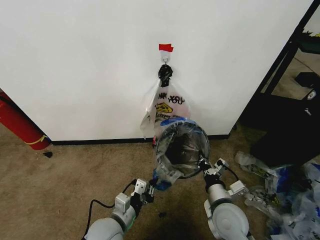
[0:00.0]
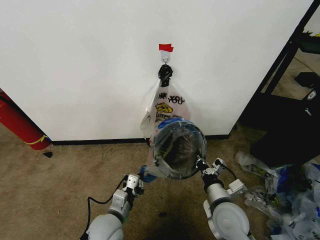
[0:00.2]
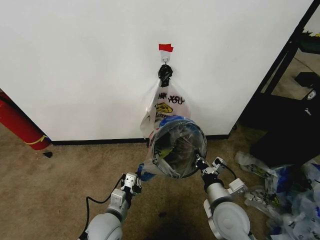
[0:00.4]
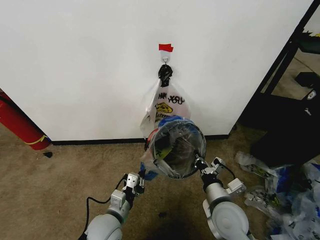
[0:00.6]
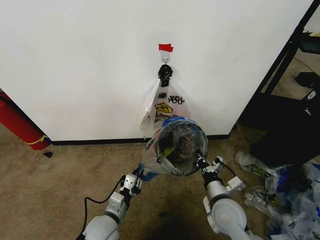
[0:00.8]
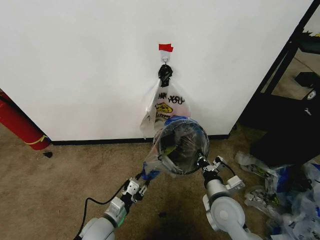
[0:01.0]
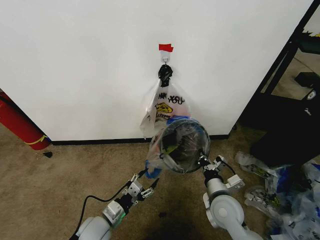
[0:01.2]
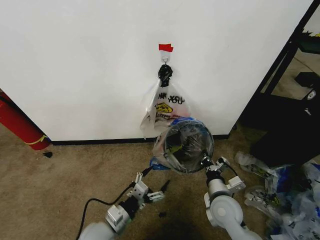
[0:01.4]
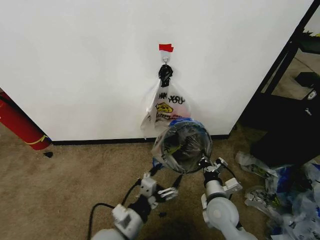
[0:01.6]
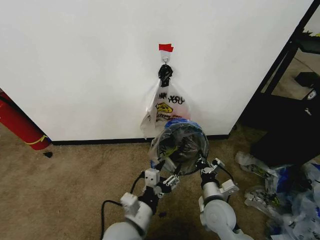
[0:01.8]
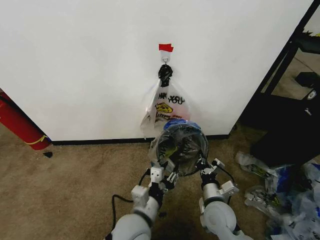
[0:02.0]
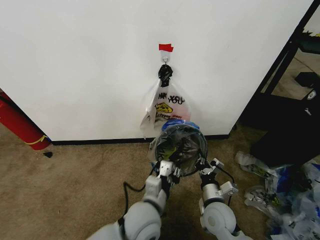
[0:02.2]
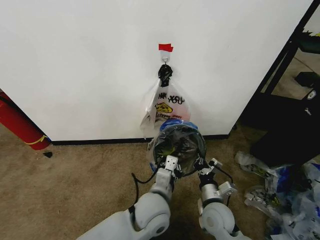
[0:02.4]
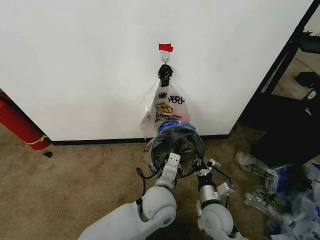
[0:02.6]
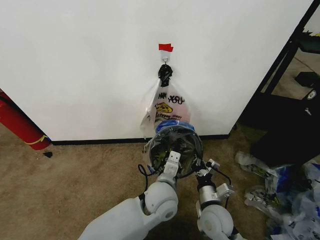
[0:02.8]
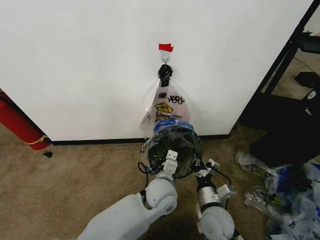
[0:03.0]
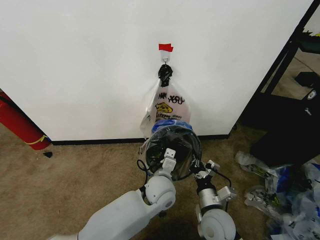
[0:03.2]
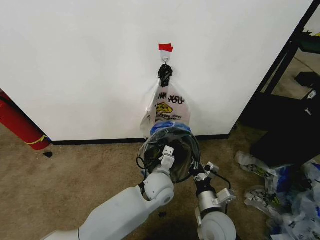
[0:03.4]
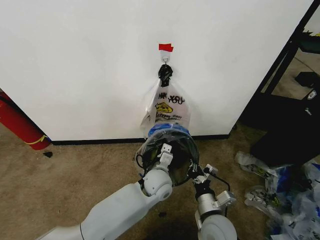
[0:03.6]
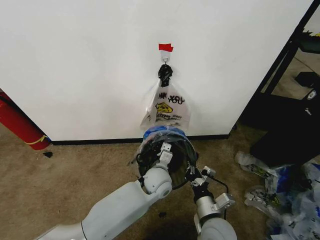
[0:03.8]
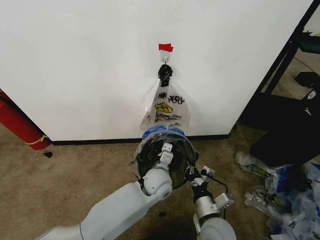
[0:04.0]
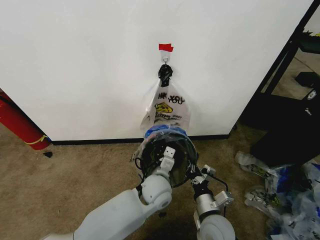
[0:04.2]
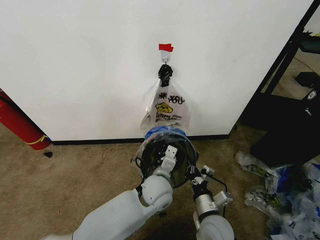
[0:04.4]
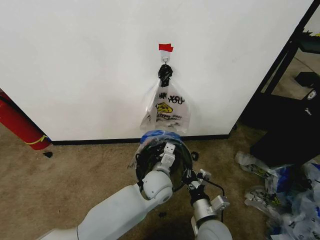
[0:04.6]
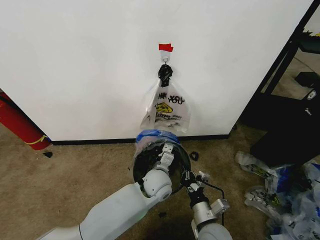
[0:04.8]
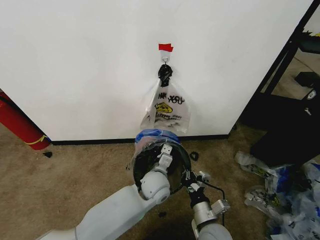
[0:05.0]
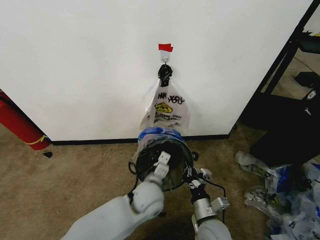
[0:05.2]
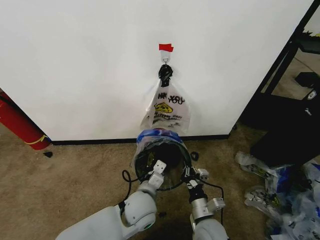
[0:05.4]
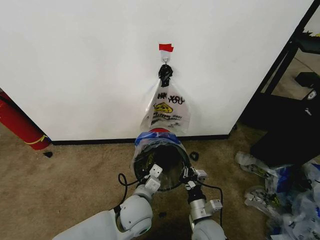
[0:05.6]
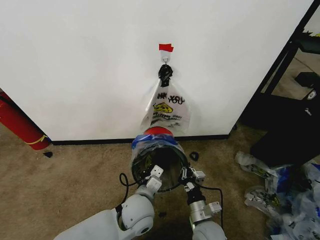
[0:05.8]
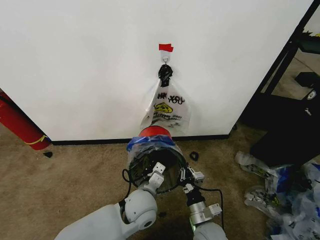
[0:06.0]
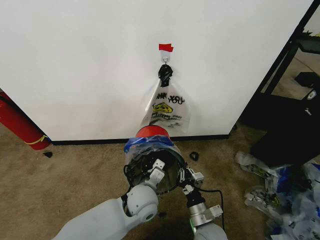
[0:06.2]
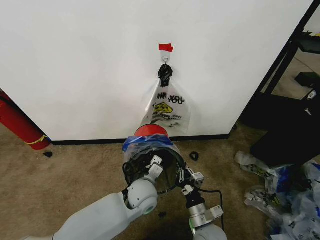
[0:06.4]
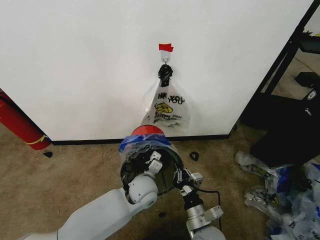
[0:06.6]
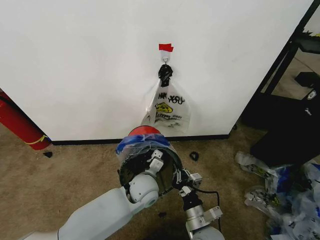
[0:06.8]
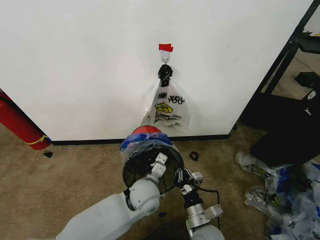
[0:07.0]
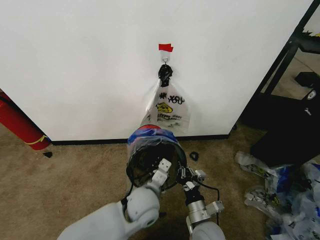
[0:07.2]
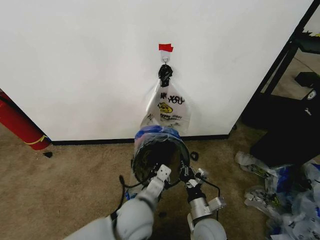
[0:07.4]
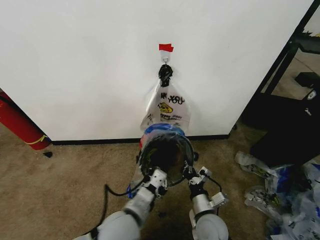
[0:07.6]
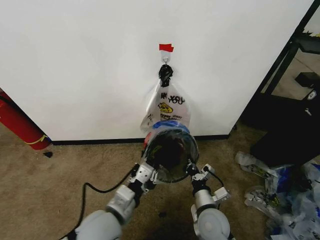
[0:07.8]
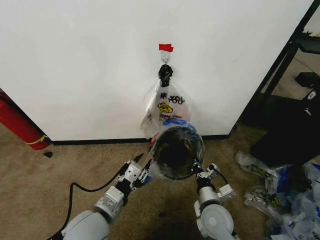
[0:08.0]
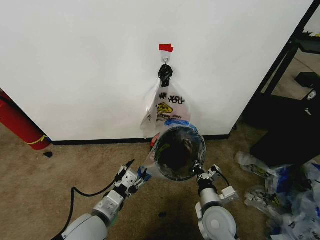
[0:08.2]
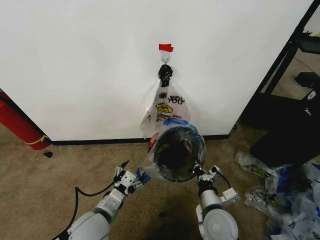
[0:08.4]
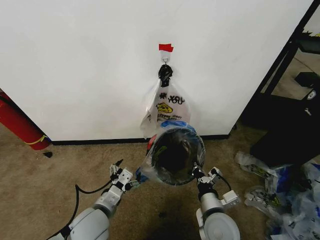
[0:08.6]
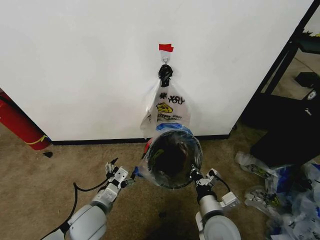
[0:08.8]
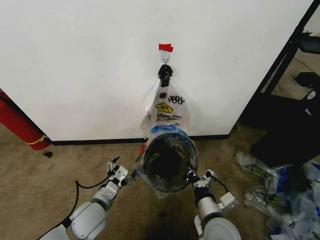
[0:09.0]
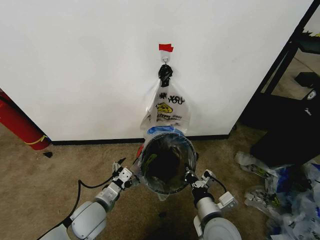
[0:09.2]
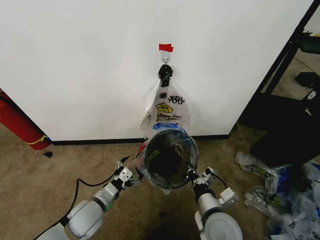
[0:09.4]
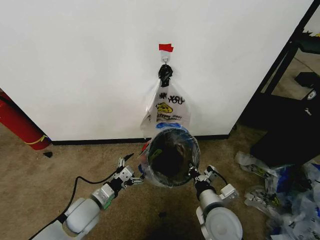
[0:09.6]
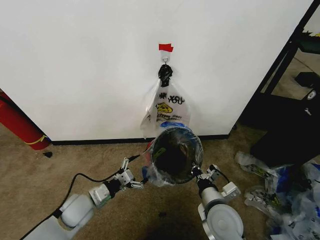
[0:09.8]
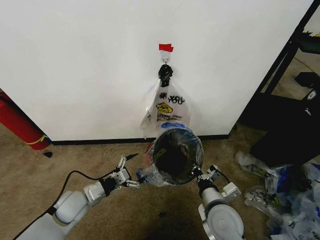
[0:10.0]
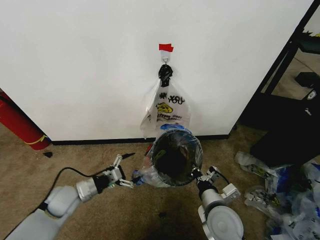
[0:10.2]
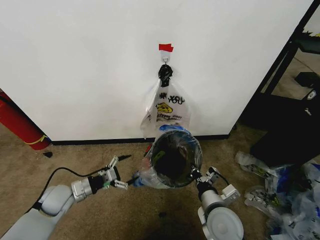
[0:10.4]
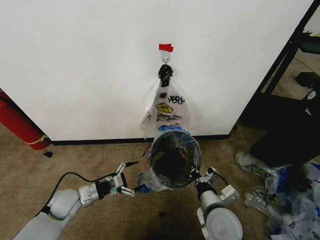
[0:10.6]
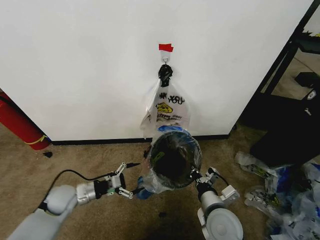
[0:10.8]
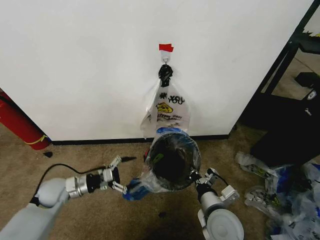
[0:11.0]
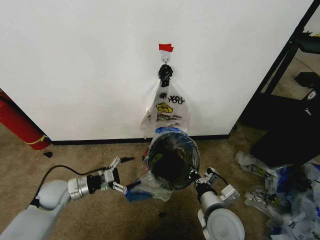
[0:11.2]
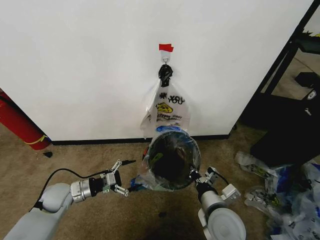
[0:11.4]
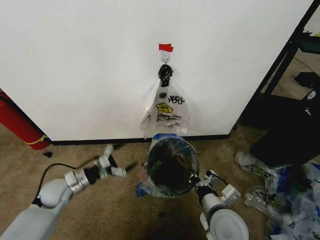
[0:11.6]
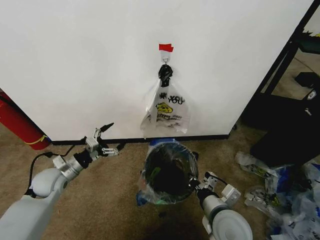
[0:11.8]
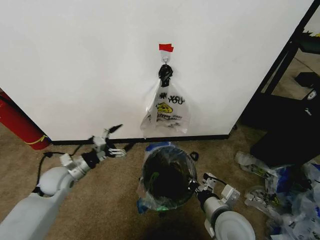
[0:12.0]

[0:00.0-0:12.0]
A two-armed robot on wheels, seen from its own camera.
Task of the whole recording: Pick up the garbage bag from the wall and place it over the trash bin.
0:00.0 to 0:01.6: The left gripper moves about 5 cm downward and comes back, and opens up.
0:01.6 to 0:03.0: The left gripper goes approximately 20 cm to the right and forward, and closes up.
0:04.4 to 0:06.0: The left gripper shifts by some 5 cm; the right gripper shifts by roughly 5 cm.
0:06.0 to 0:07.6: The left gripper moves backward and upward, approximately 10 cm.
0:07.6 to 0:09.0: The right gripper shifts about 5 cm upward. Meanwhile the left gripper is displaced to the left, downward and forward by some 15 cm, and opens its fingers.
0:09.0 to 0:10.4: The left gripper moves to the left and forward, approximately 15 cm.
0:10.4 to 0:12.0: The left gripper goes about 5 cm upward.

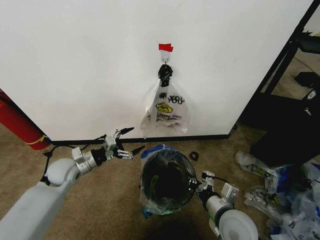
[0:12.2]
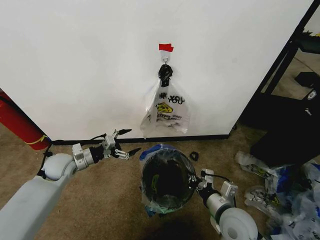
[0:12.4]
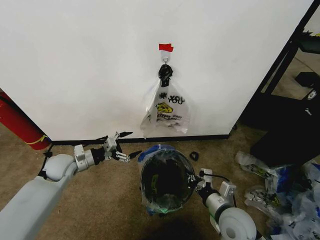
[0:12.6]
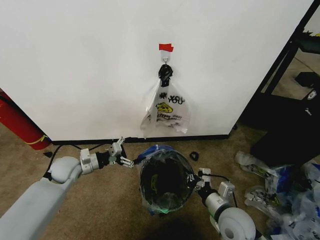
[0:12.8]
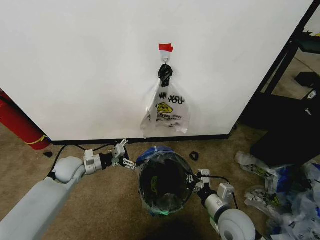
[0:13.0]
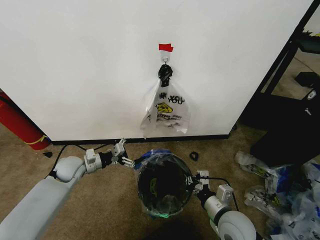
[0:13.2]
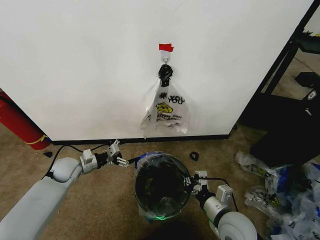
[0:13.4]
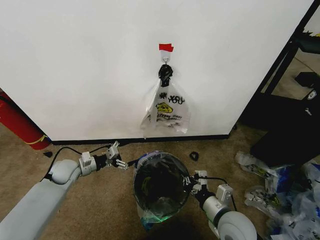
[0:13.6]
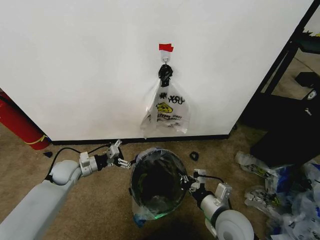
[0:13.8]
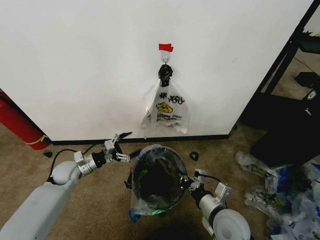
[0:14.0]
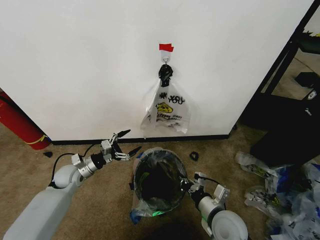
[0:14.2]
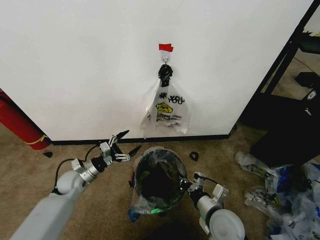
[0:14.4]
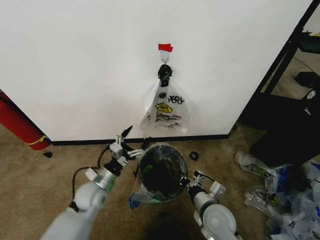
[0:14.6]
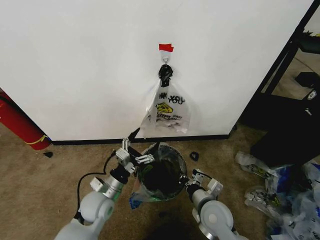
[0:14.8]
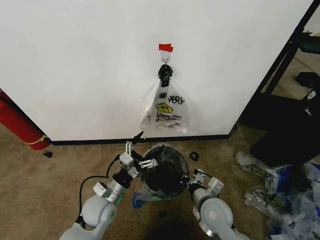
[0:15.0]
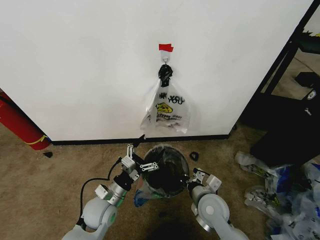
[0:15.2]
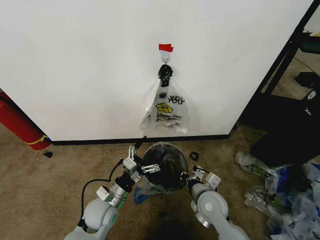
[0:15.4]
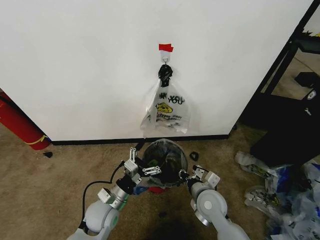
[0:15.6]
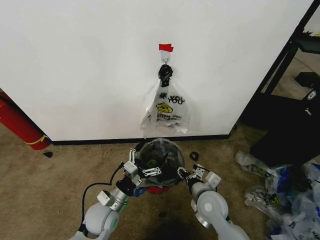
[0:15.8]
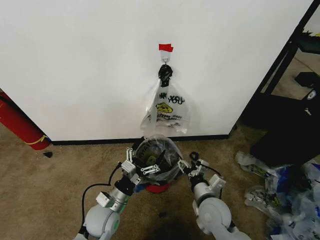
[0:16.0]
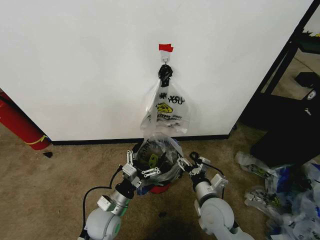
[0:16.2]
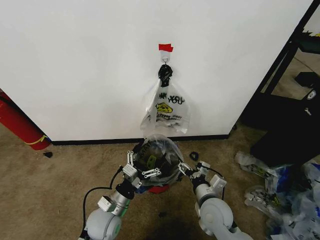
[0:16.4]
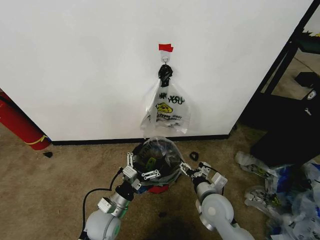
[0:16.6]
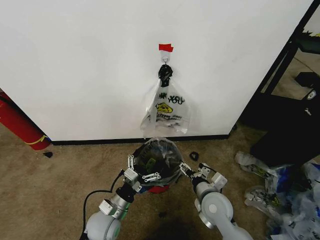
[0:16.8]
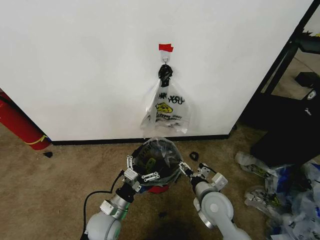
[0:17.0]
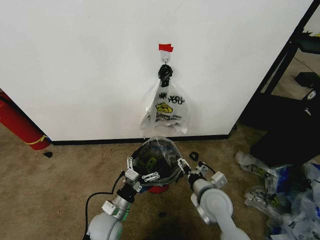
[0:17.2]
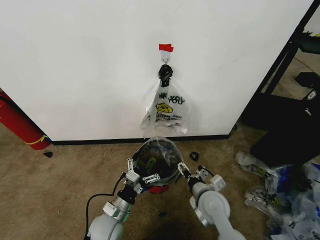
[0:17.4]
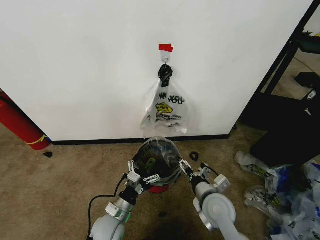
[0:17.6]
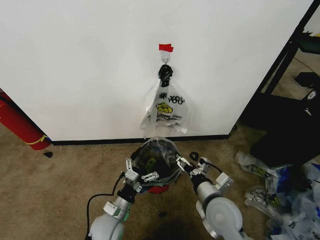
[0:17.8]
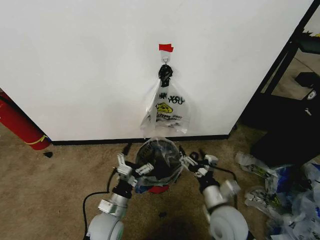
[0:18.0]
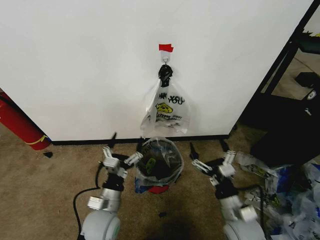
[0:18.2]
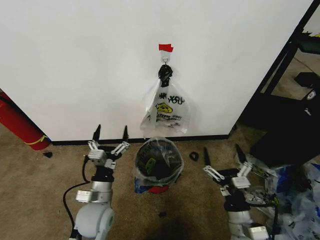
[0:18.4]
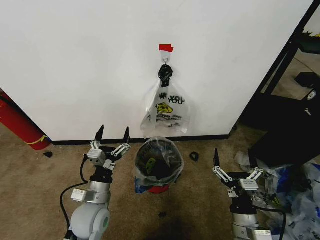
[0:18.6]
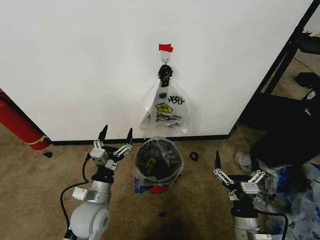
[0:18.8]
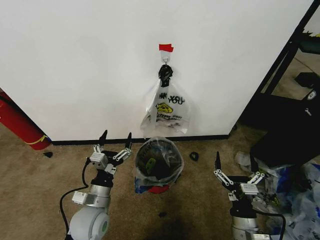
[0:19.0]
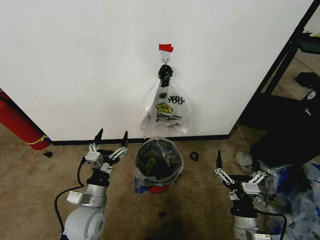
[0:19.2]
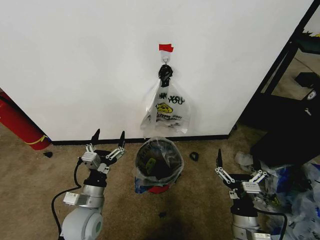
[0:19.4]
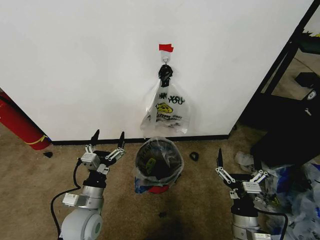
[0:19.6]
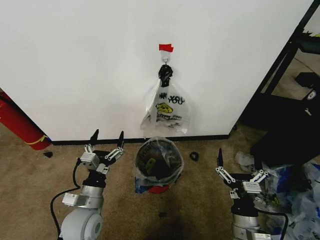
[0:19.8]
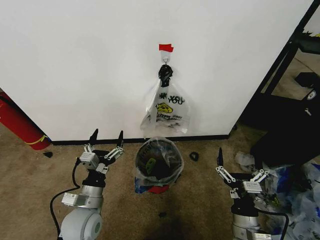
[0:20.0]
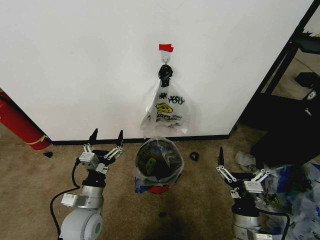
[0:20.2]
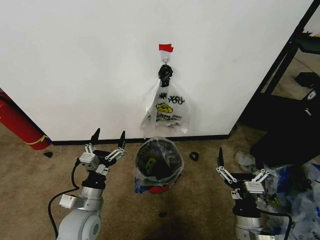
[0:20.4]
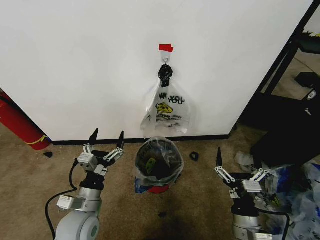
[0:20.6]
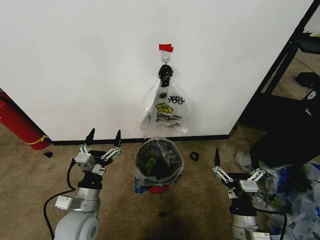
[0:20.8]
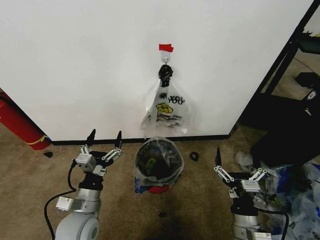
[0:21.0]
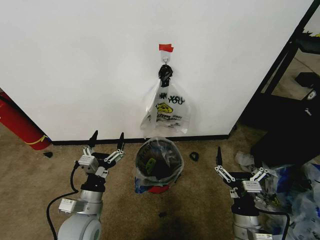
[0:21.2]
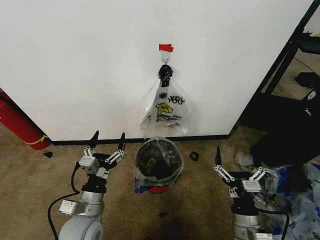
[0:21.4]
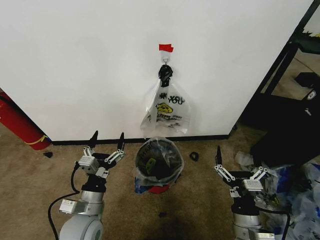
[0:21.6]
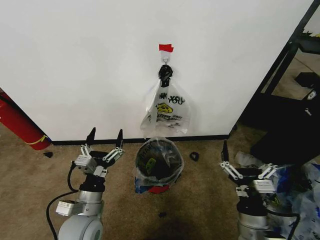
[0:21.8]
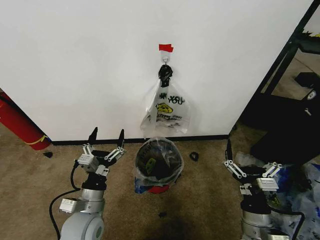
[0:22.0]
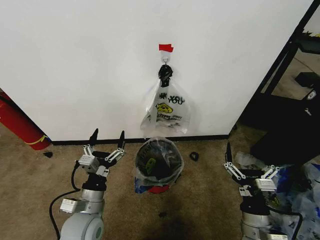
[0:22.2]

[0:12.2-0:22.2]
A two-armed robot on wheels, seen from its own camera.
Task of the whole recording: Pick up the garbage bag from the wall and place it over the trash bin.
0:12.2 to 0:13.6: The left gripper shifts by about 5 cm.
0:13.6 to 0:15.0: The left gripper travels to the right and backward by some 20 cm. The right gripper moves forward, approximately 5 cm.
0:15.0 to 0:16.4: The right gripper opens.
0:18.0 to 0:19.4: The left gripper moves to the left and upward, some 5 cm; the right gripper is displaced backward by about 5 cm.
0:19.4 to 0:22.2: There are only small adjustments of the grippers.
